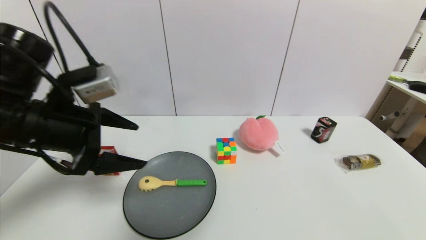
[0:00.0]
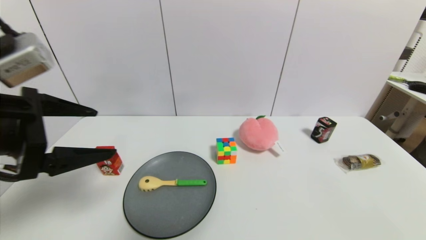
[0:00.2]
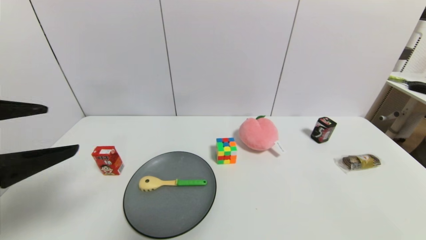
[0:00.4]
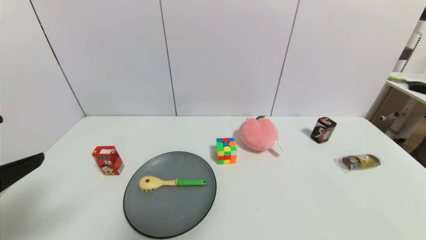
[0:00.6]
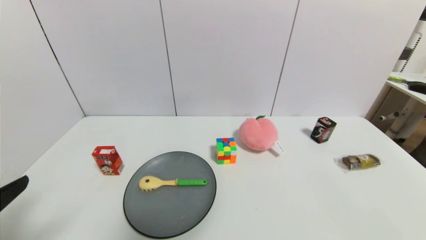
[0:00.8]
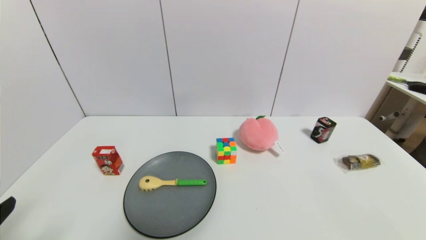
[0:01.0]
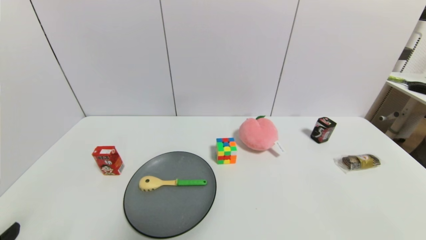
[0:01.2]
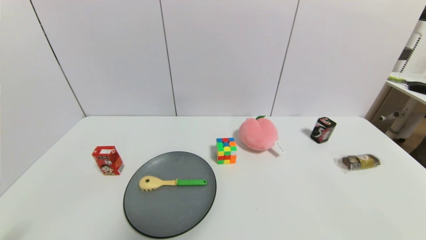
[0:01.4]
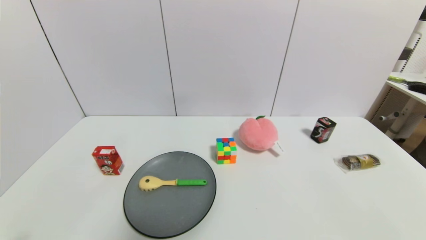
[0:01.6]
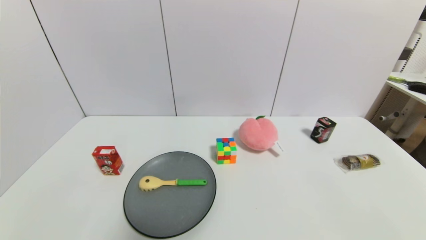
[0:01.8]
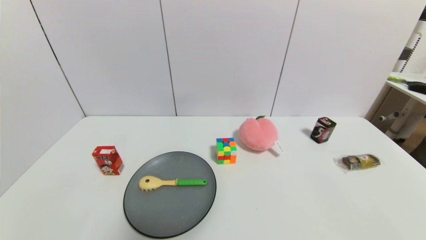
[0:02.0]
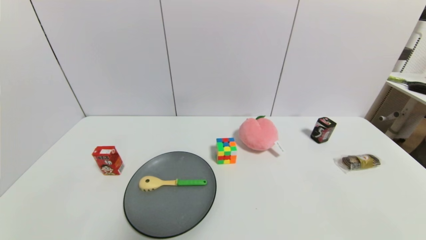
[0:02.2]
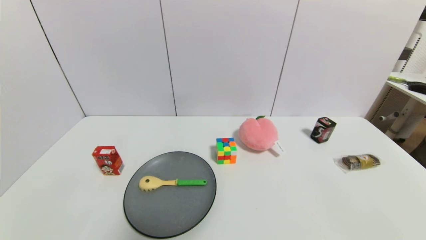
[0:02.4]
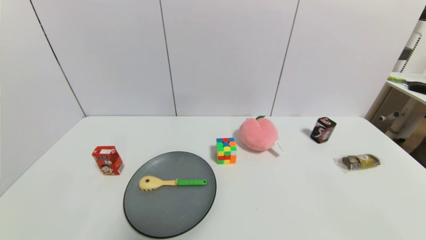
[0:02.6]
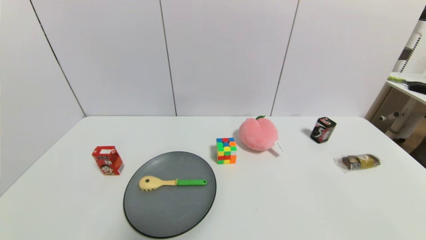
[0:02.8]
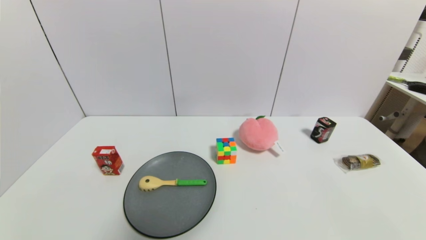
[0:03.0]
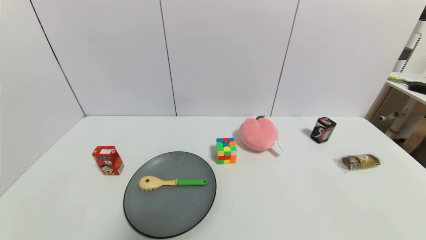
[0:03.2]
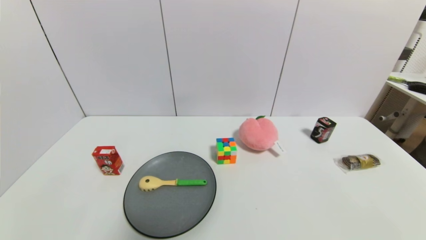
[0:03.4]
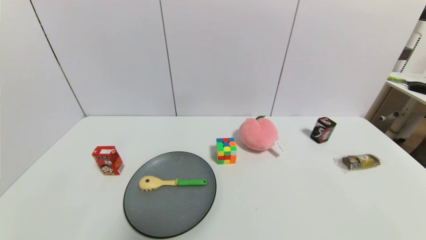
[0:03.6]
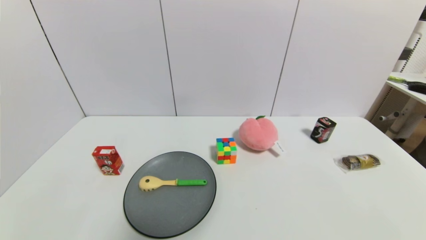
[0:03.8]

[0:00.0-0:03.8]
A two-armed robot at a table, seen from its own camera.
Task of the whole recording: use a gripper to pick the target object and place on the gray plate.
0:00.0 to 0:01.2: The left gripper is displaced backward and downward by about 25 cm.
0:02.6 to 0:03.8: Both grippers stay put.

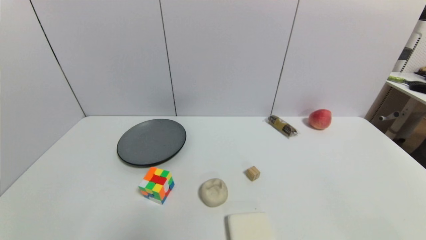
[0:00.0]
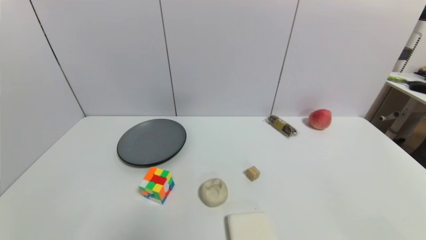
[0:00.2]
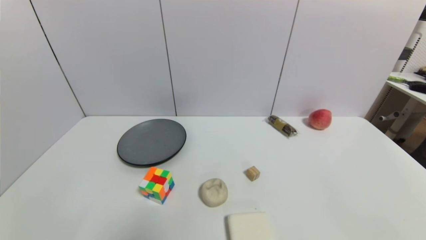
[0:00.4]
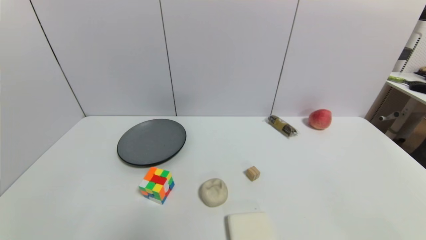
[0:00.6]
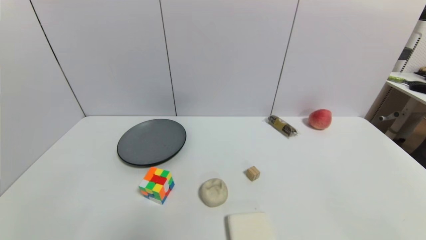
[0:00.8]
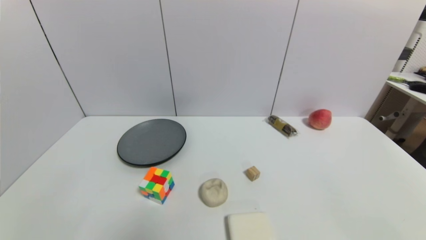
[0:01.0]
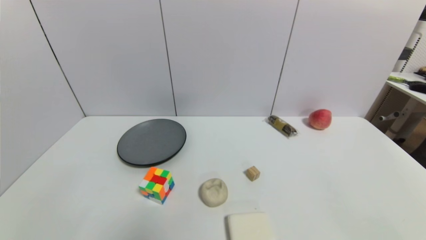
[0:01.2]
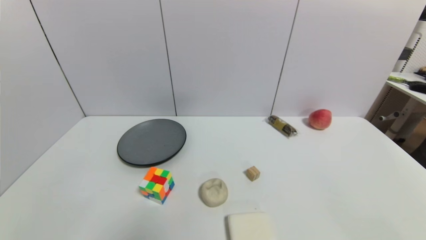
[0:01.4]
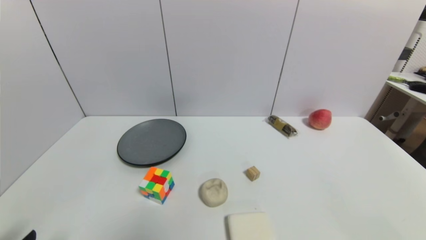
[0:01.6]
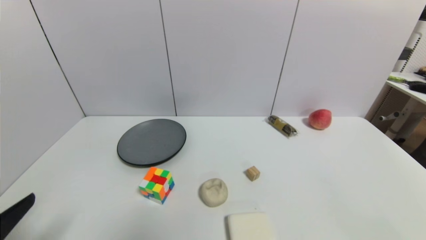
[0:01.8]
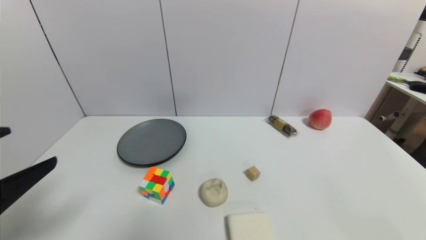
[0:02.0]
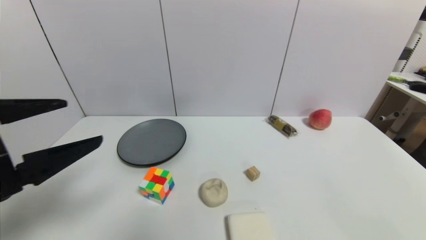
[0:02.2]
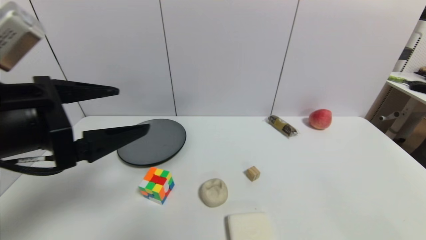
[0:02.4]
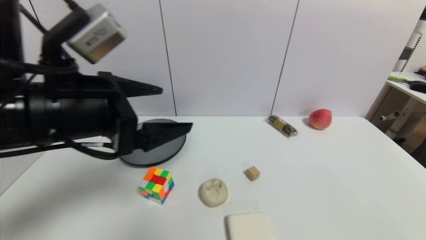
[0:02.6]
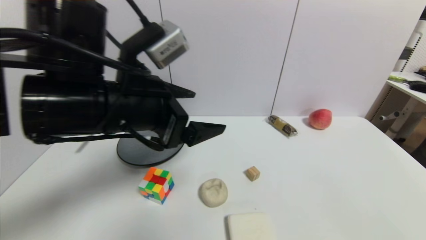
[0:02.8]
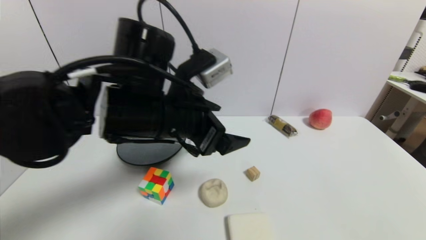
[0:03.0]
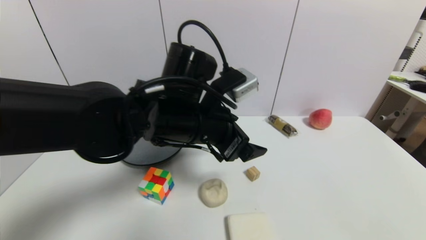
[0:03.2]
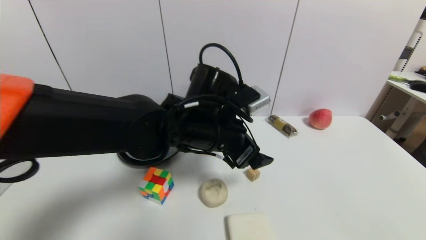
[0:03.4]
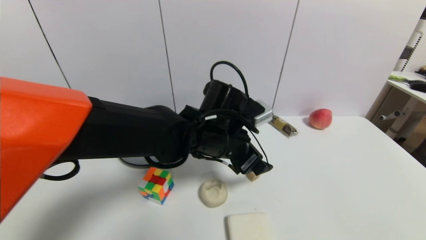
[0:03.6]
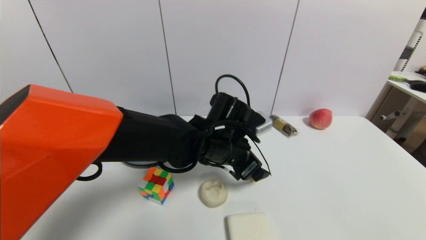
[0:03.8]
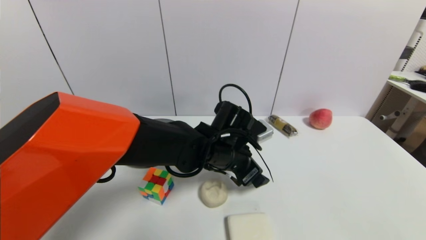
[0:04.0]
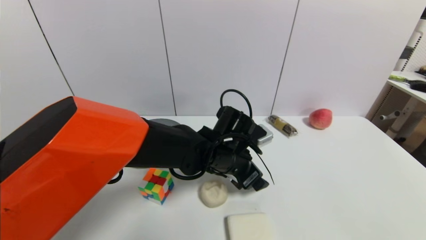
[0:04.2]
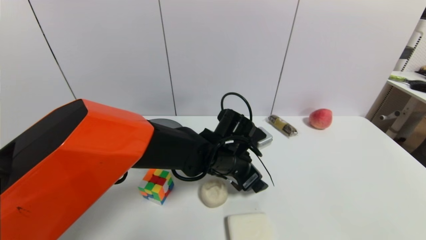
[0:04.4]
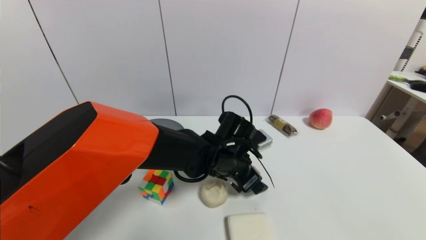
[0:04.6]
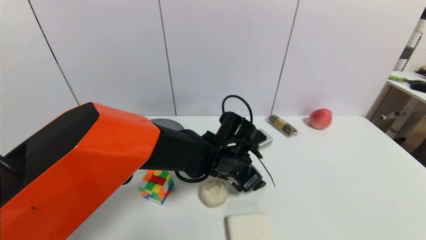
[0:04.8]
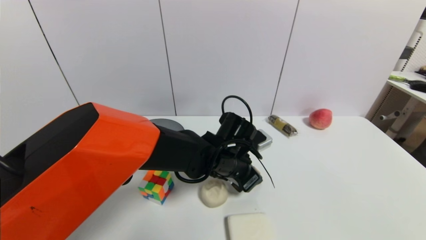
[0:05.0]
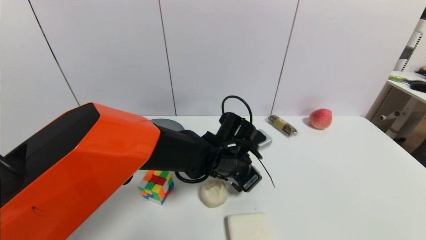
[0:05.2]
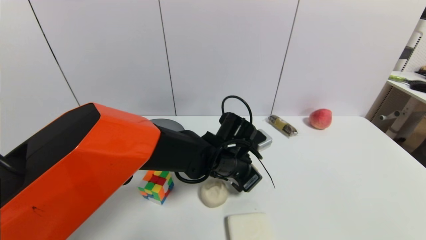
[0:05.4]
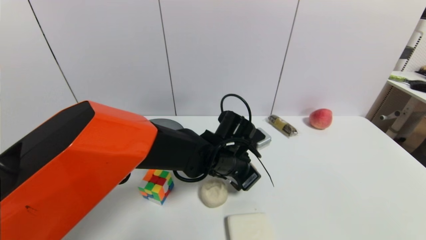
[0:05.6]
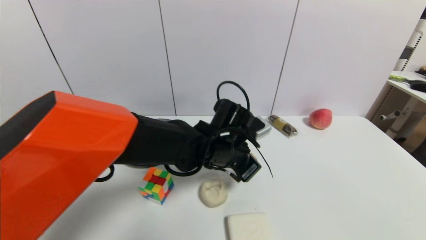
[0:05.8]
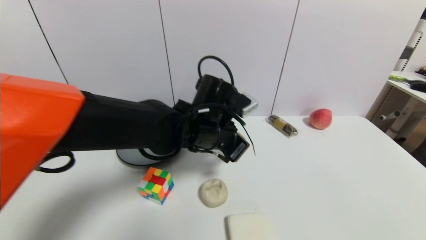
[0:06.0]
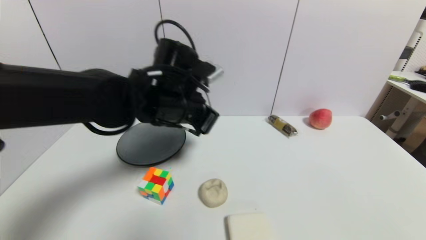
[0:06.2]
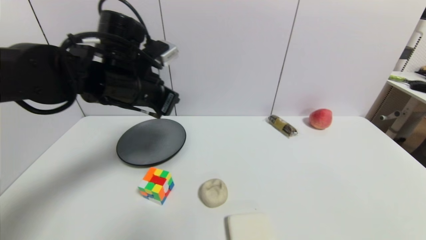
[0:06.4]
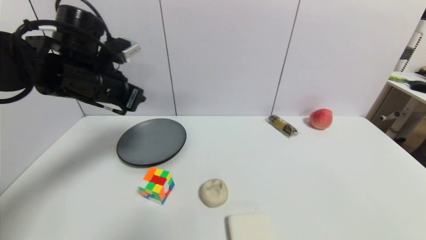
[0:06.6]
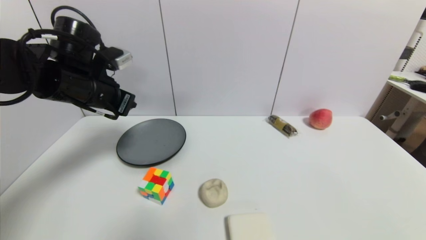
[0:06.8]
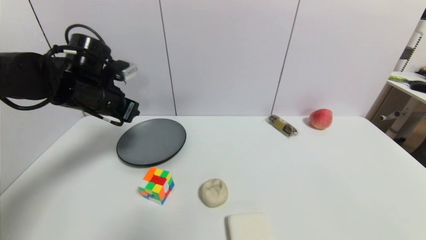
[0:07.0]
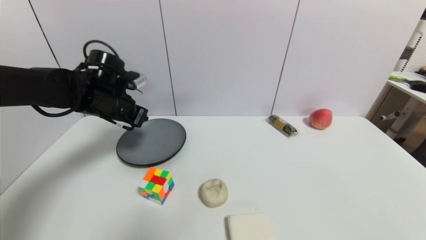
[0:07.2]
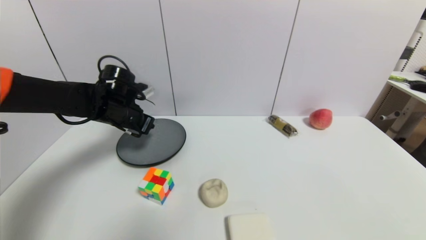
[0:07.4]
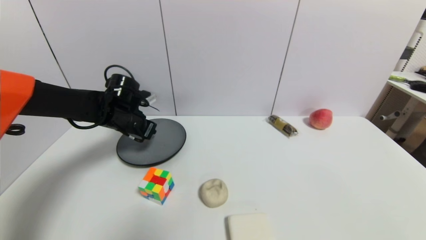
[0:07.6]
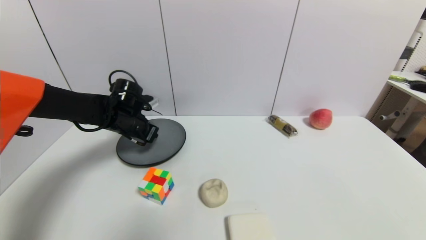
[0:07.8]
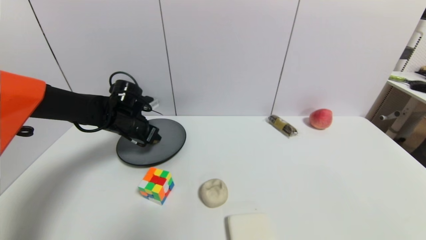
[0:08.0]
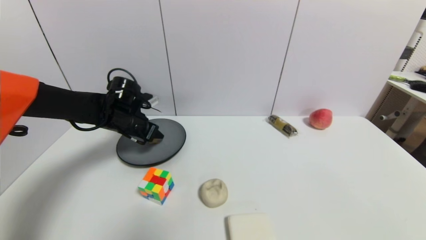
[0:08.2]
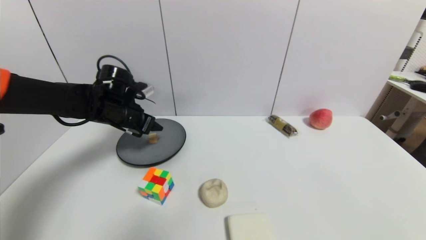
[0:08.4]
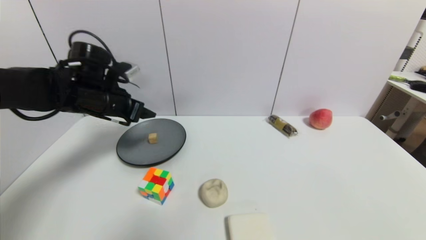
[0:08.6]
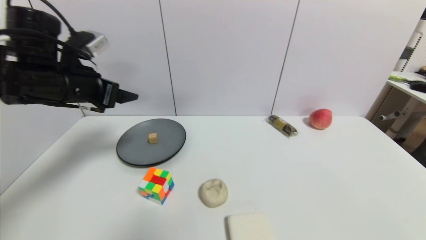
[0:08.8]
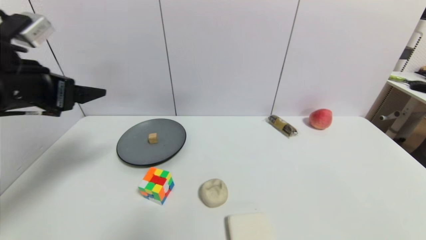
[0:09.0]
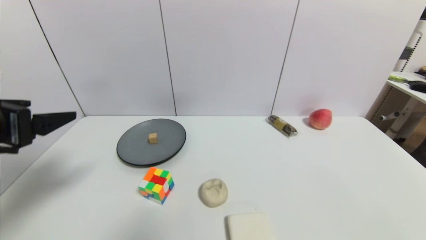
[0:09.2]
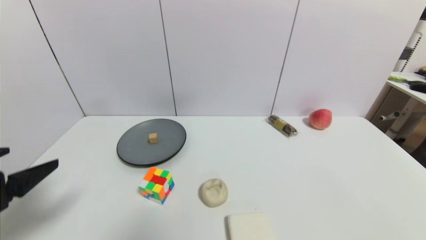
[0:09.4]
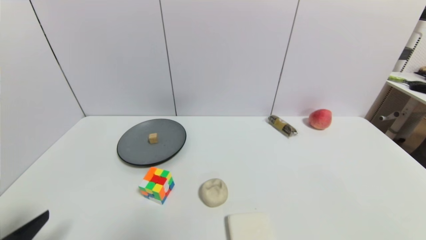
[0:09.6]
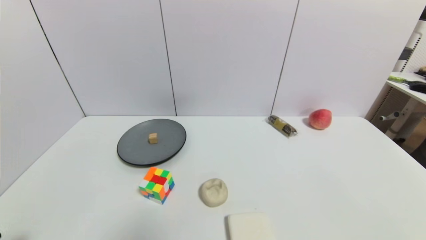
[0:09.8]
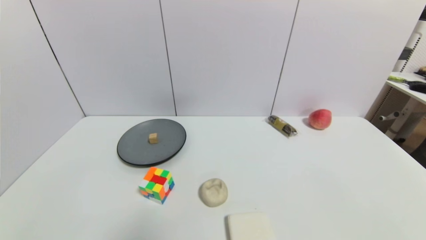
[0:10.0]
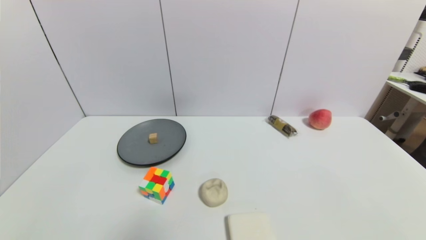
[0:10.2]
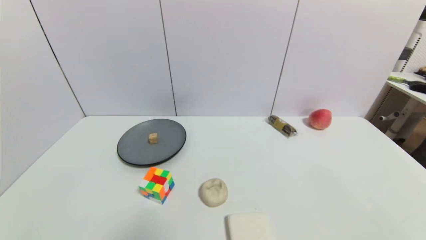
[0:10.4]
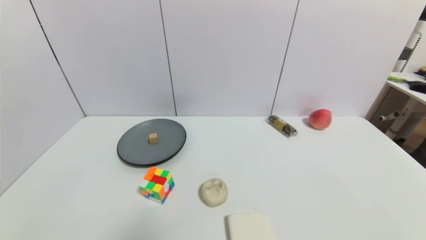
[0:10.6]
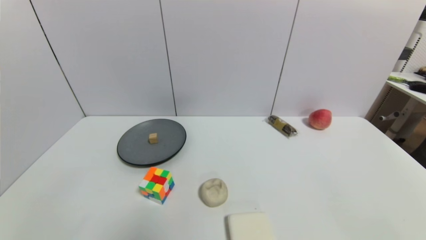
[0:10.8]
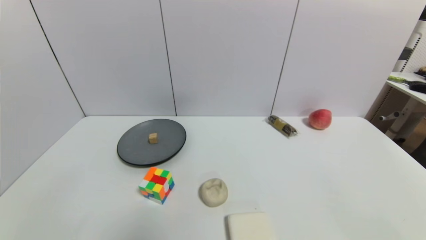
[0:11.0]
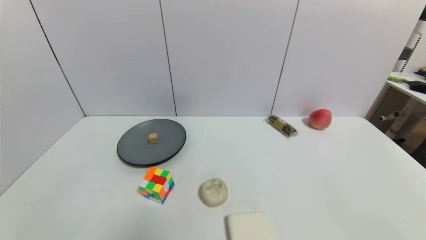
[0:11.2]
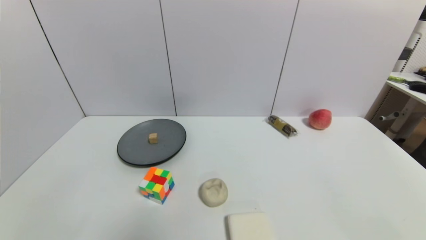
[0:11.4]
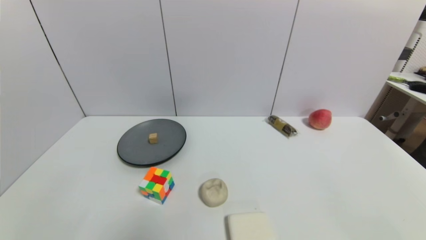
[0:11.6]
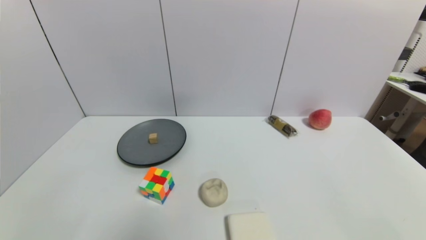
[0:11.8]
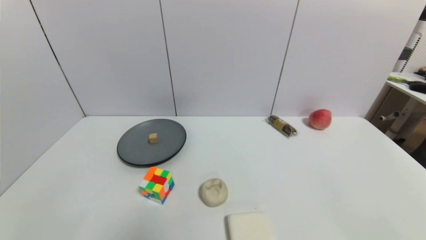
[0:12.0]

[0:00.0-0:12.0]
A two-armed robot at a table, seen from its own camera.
Task of the whole recording: use a gripper to pick the target object and place on the gray plate.
Step, 0:00.0 to 0:05.4: Grasp the square wooden block with the left gripper.
Step, 0:05.6 to 0:08.2: Place the square wooden block on the gray plate with the left gripper.
0:01.6 to 0:03.0: The left gripper shifts some 35 cm to the right, forward and upward.
0:03.0 to 0:04.4: The left gripper travels downward, to the right and forward by roughly 20 cm.
0:04.4 to 0:06.0: The left gripper goes approximately 10 cm upward, and closes its fingers.
0:06.0 to 0:07.6: The left gripper shifts about 25 cm to the left and forward.
0:07.6 to 0:09.0: The left gripper moves backward and upward, roughly 25 cm, and opens up.
0:09.0 to 0:10.4: The left gripper shifts roughly 35 cm downward and backward.
